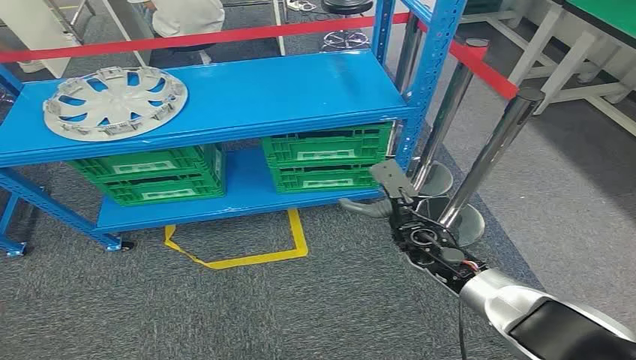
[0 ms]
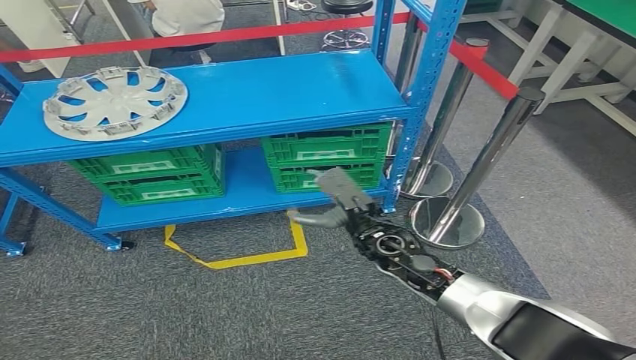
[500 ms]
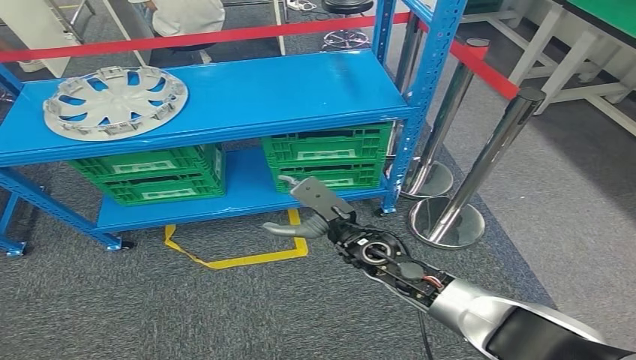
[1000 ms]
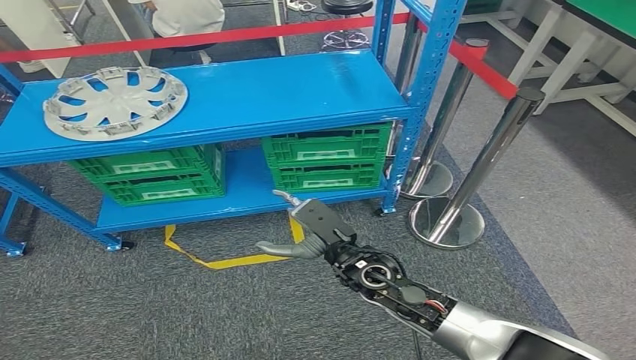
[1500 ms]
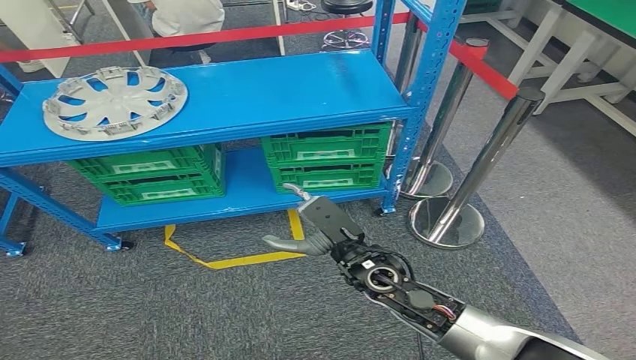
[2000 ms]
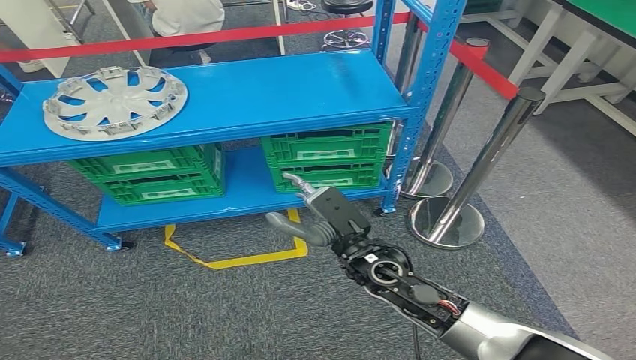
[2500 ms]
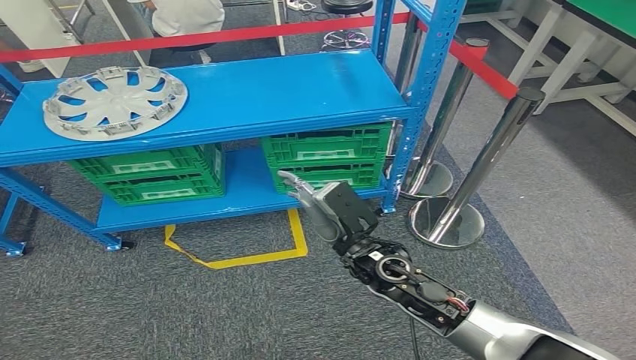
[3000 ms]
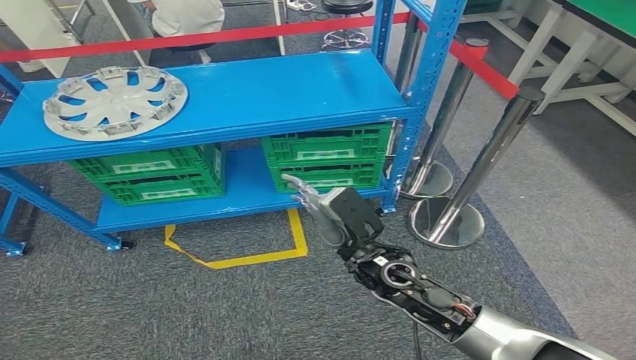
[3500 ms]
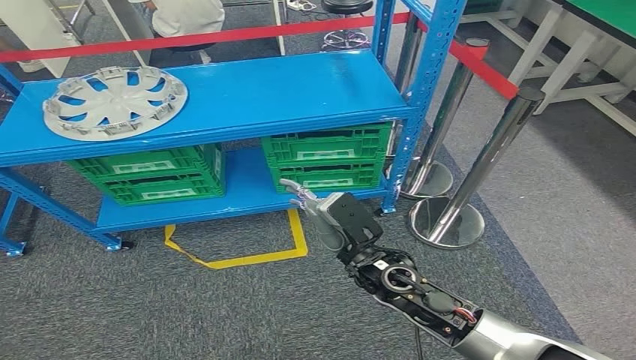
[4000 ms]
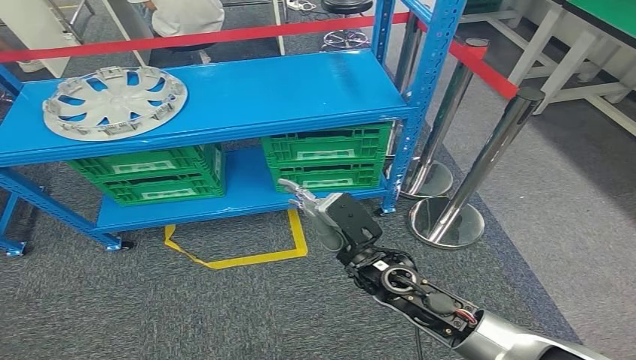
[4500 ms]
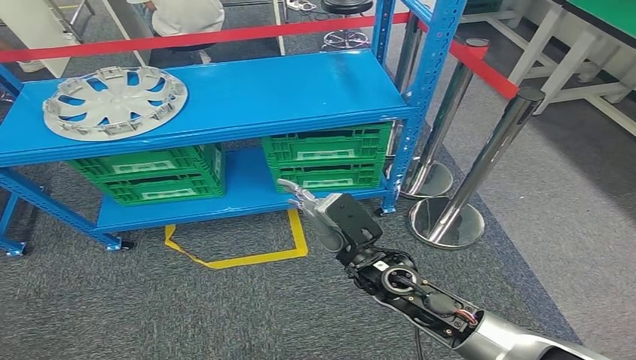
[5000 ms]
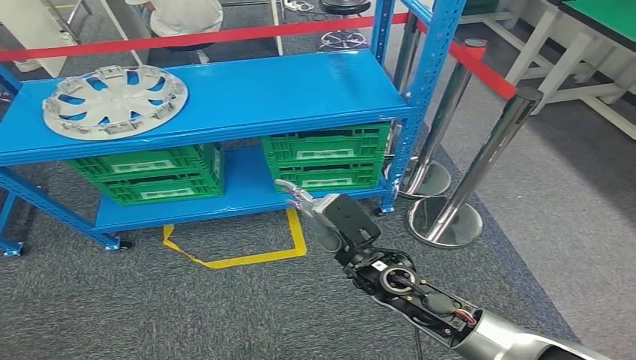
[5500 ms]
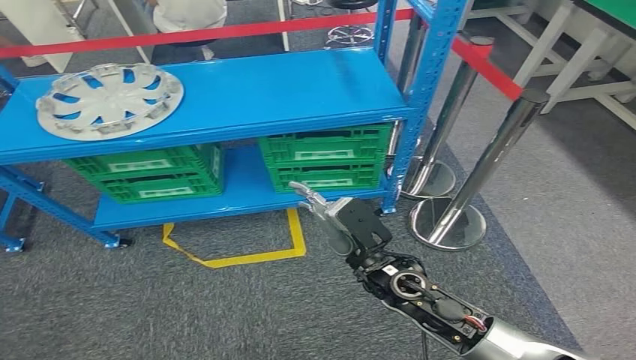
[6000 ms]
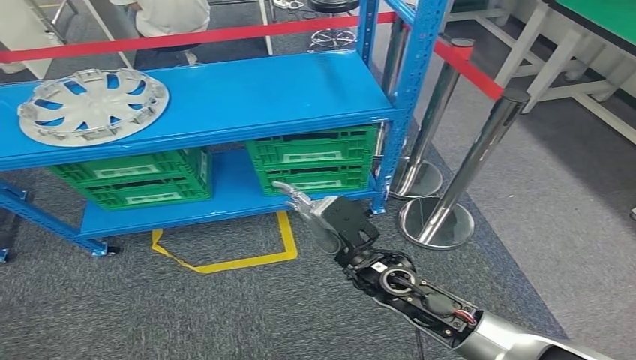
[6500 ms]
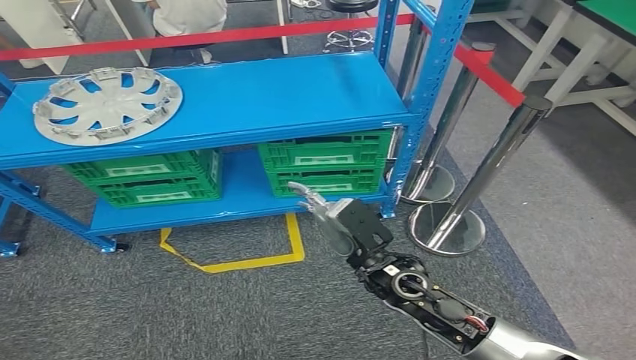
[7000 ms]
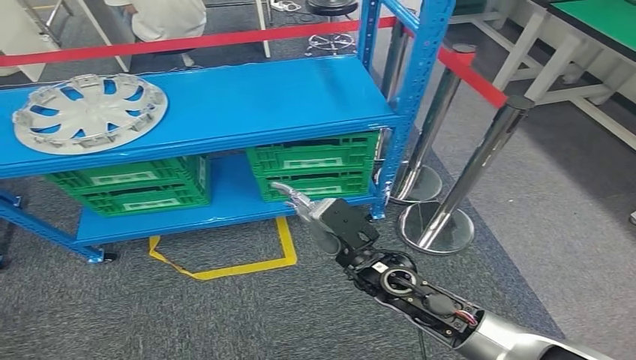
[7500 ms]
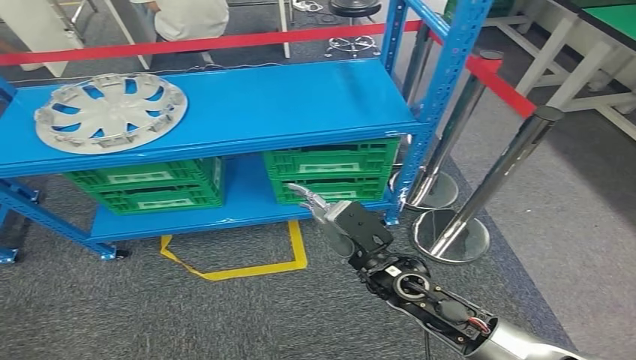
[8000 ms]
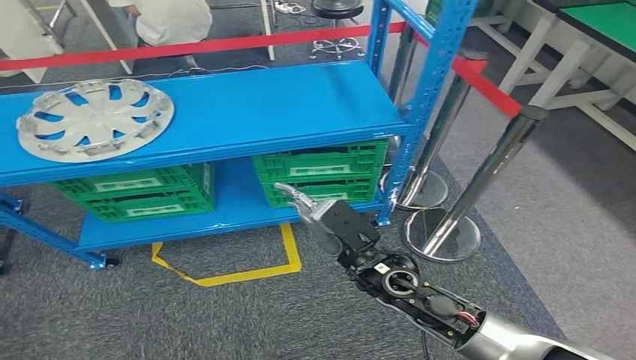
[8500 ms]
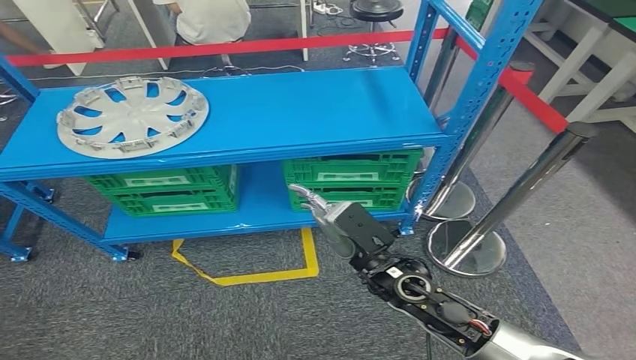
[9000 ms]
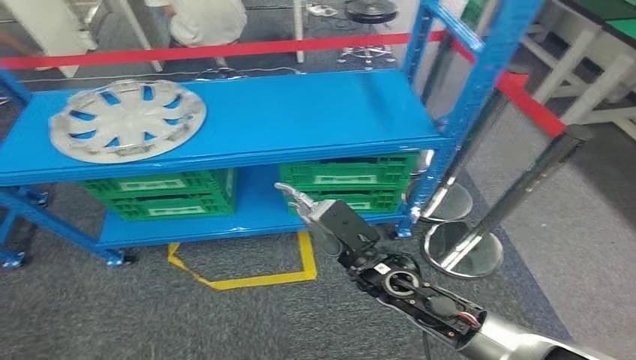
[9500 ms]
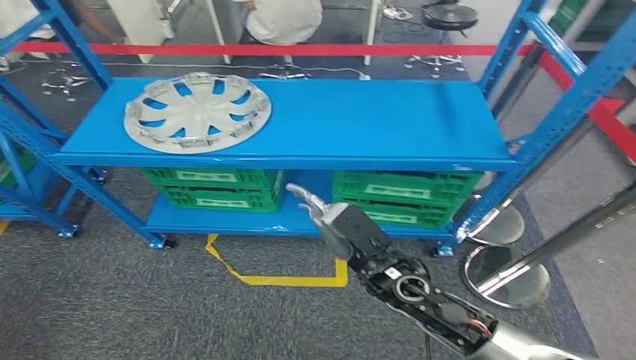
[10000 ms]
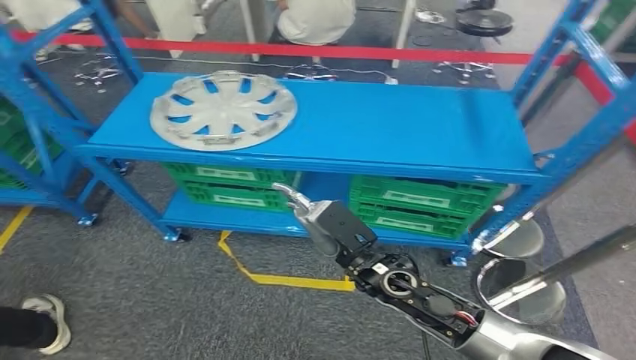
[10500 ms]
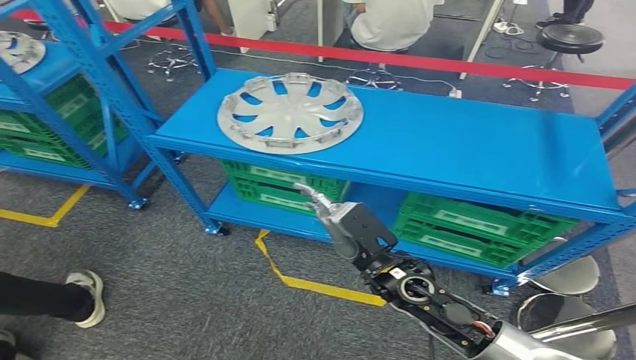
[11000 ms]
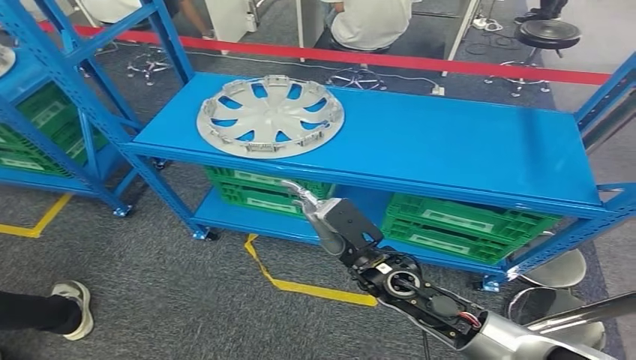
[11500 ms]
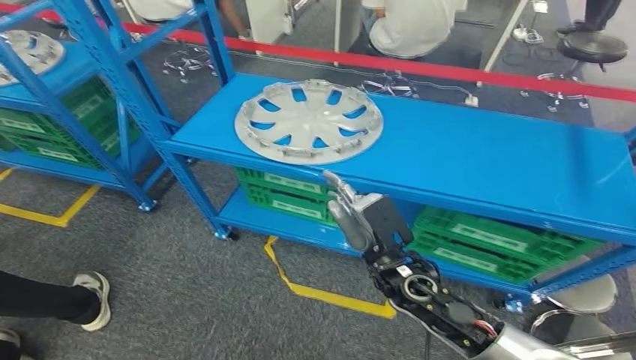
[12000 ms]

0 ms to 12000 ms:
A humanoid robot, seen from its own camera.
2000 ms to 4000 ms: The hands move only a little.
4000 ms to 6000 ms: The two hands keep their place.

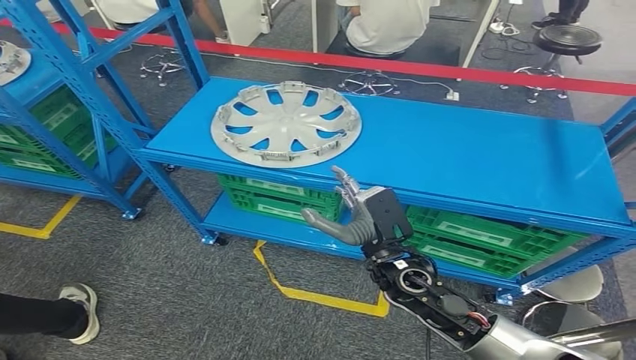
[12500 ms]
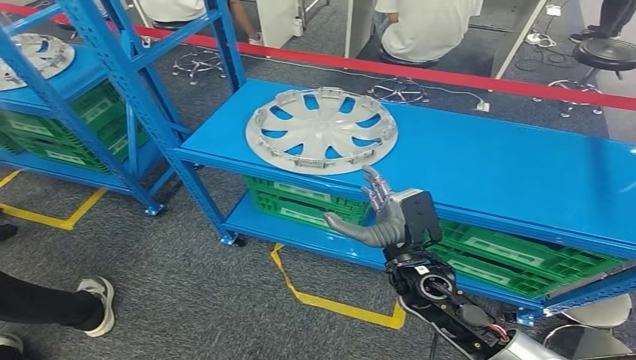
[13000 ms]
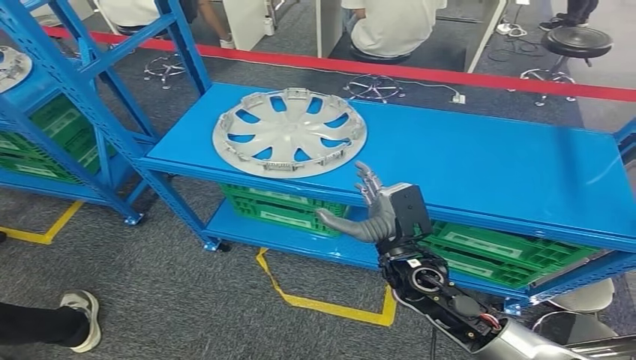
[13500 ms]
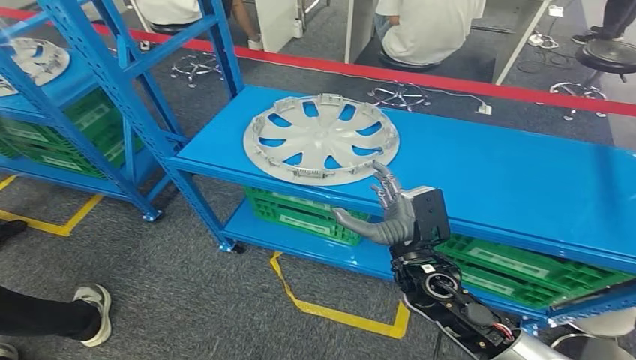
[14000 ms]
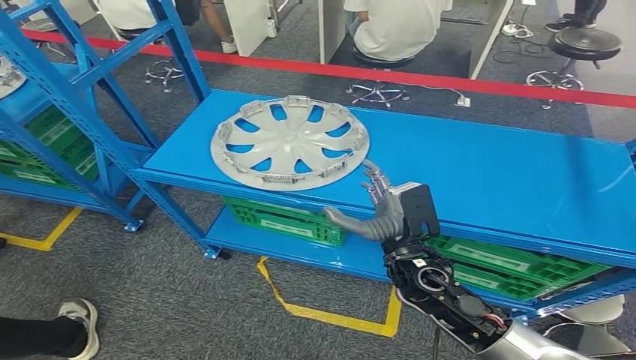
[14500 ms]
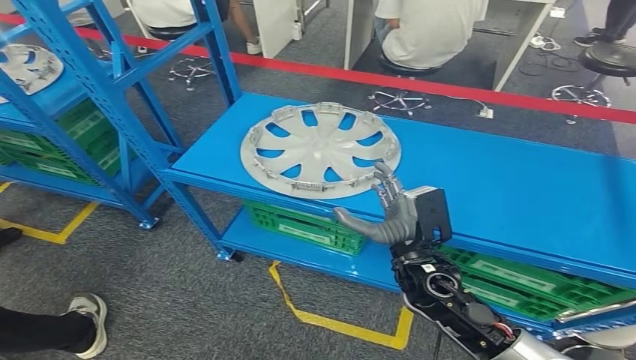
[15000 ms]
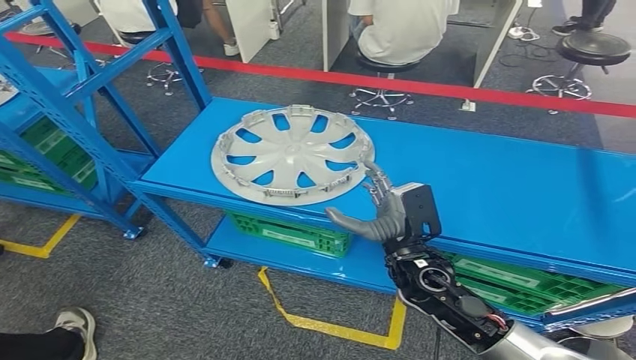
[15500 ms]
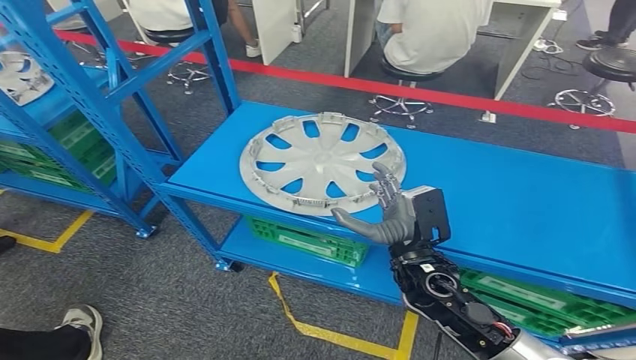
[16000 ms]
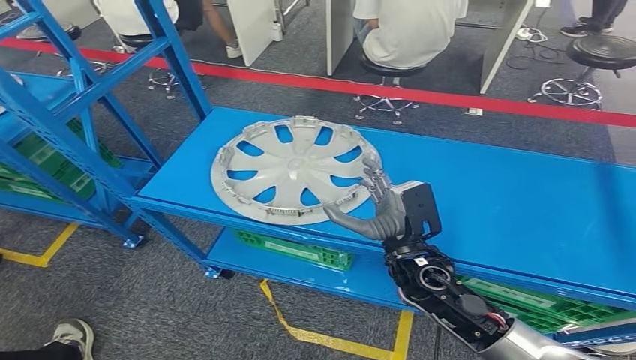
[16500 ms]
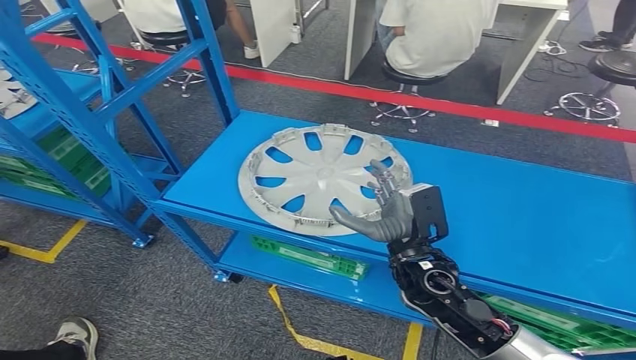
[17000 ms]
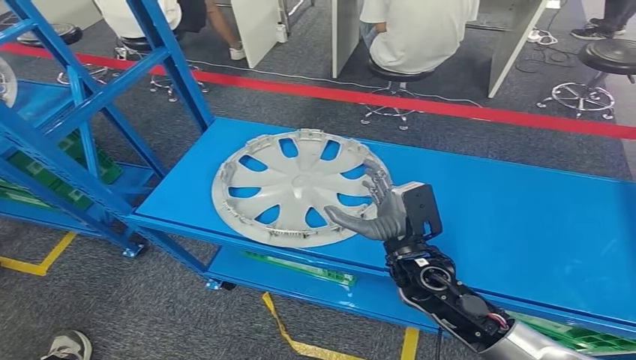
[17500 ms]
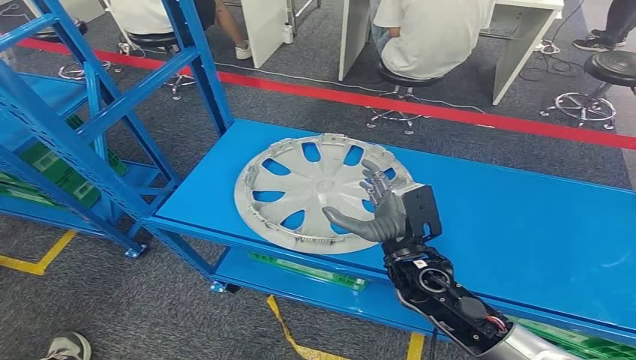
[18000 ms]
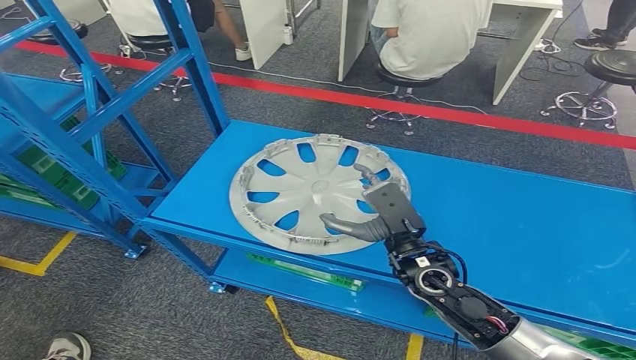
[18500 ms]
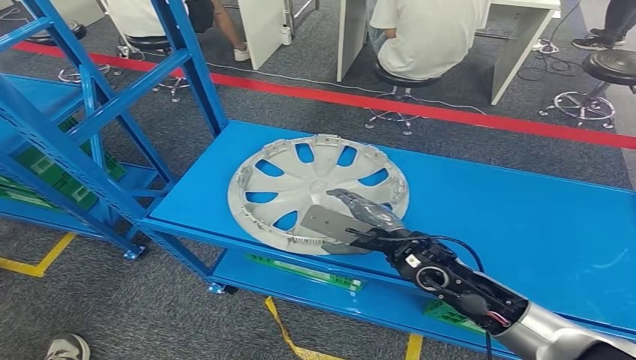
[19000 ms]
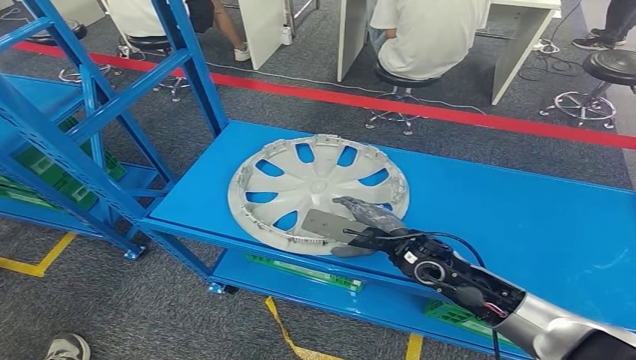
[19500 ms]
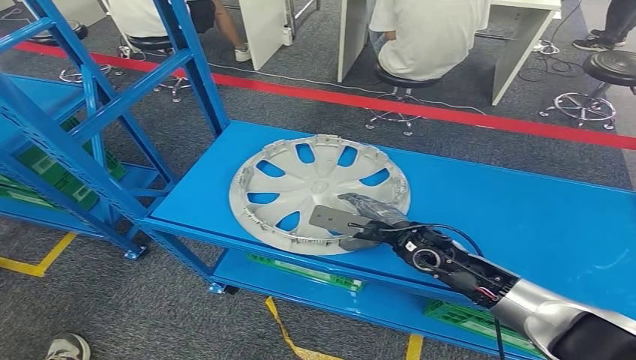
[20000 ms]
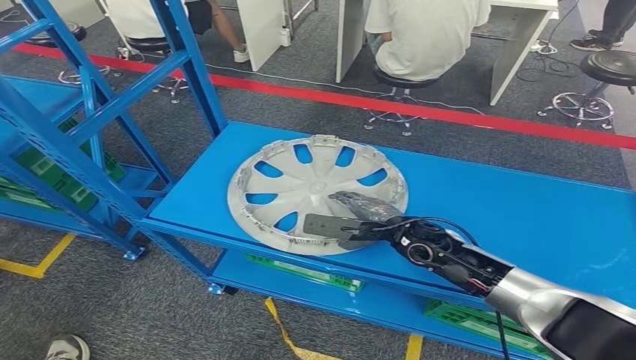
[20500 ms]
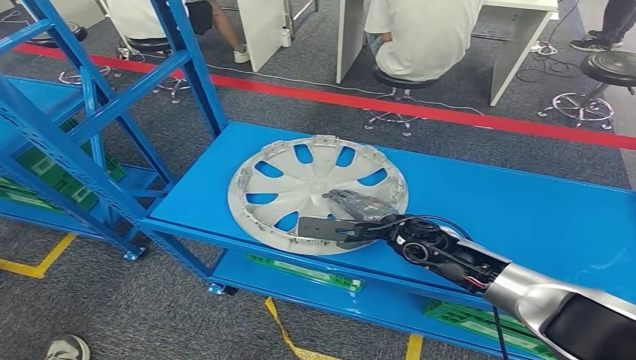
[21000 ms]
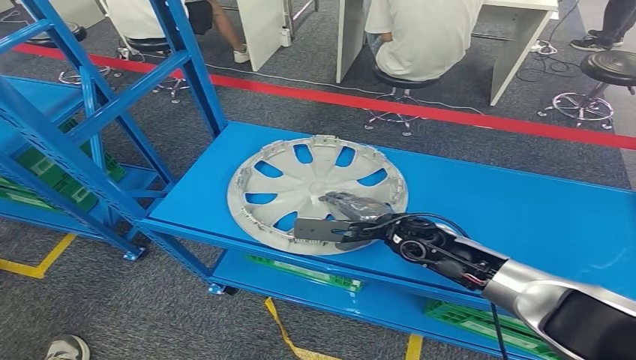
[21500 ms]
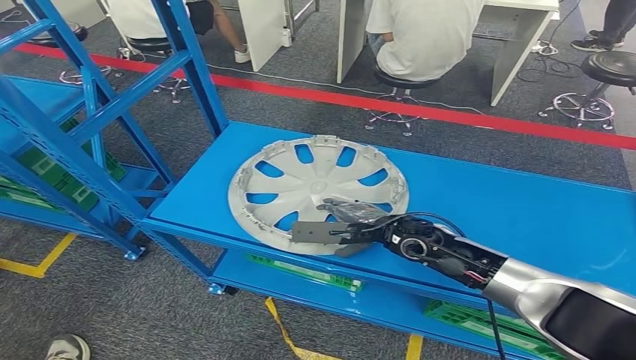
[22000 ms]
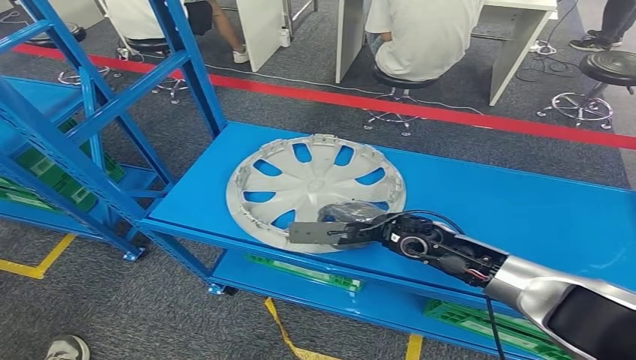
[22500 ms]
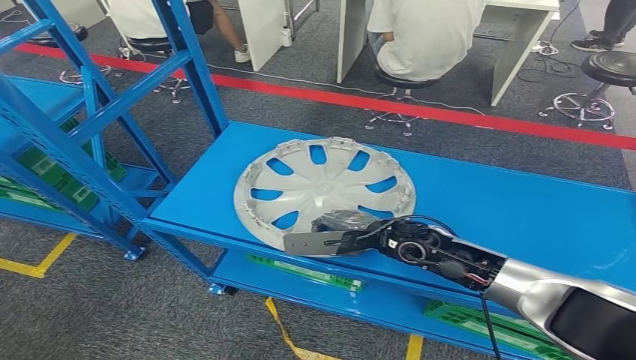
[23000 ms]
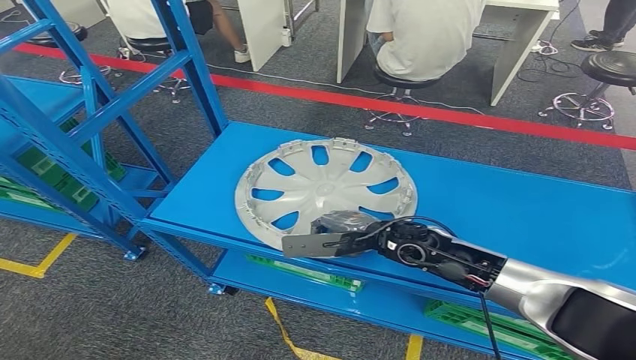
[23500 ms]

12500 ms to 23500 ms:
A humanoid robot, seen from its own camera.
18000 ms to 20000 ms: The right hand travels forward by some 5 cm.
20000 ms to 21500 ms: The hands make only small movements.
21500 ms to 23500 ms: The hands stay close to where they were, moving slightly.
